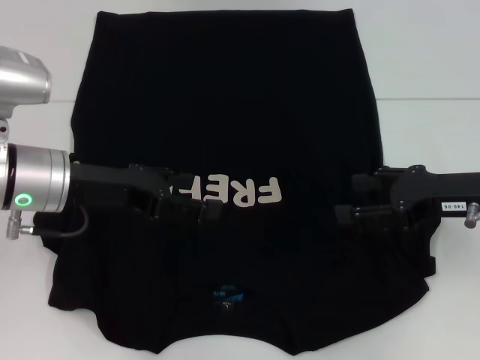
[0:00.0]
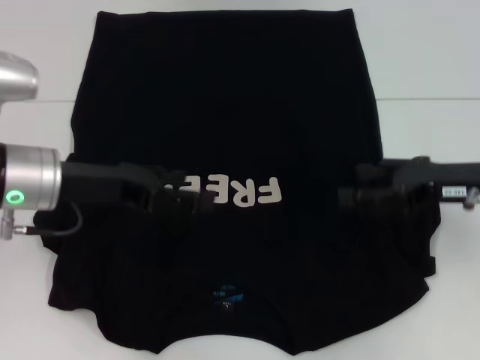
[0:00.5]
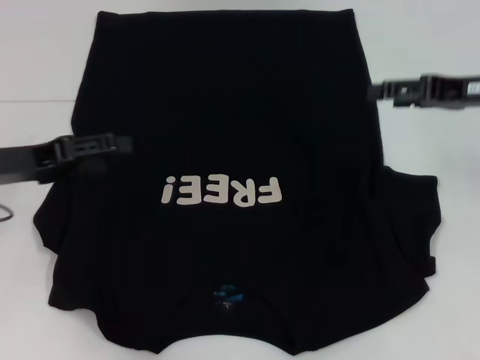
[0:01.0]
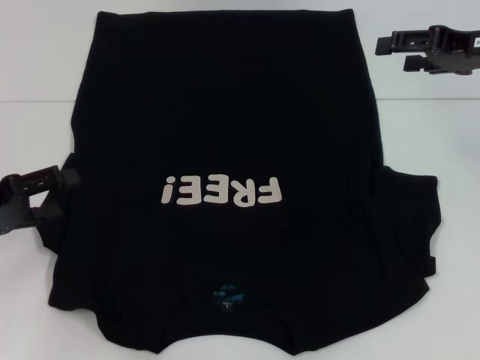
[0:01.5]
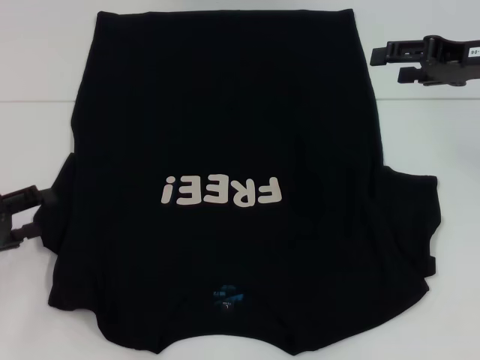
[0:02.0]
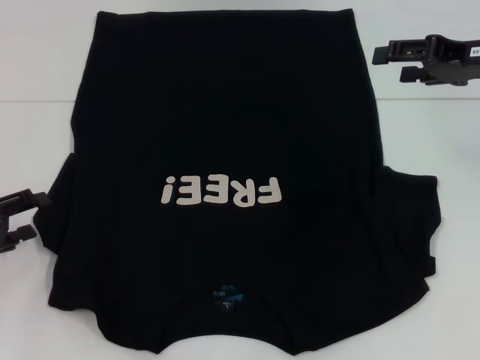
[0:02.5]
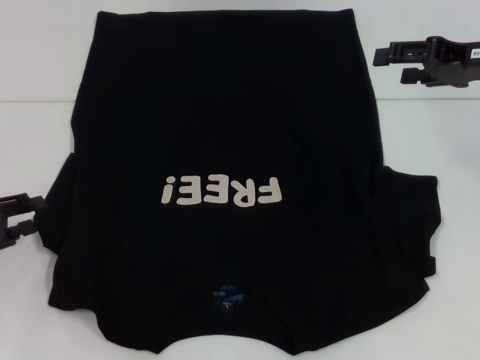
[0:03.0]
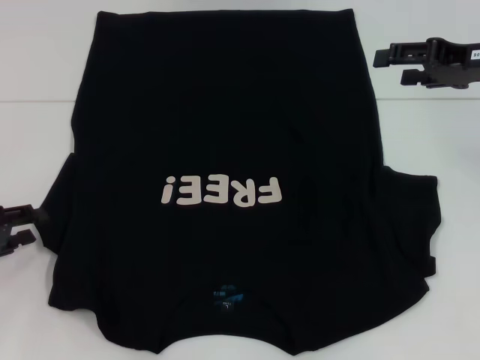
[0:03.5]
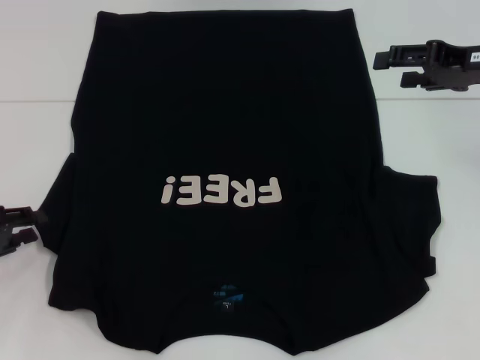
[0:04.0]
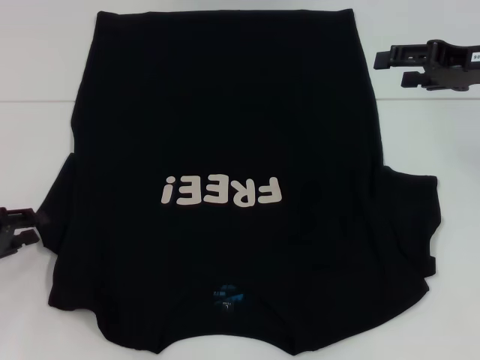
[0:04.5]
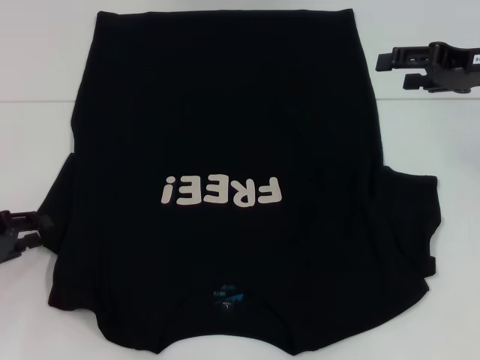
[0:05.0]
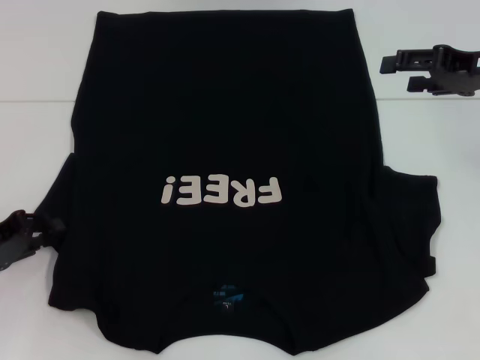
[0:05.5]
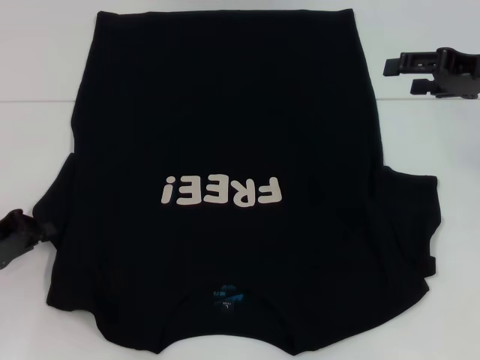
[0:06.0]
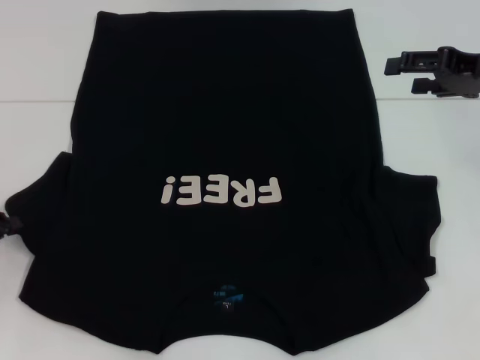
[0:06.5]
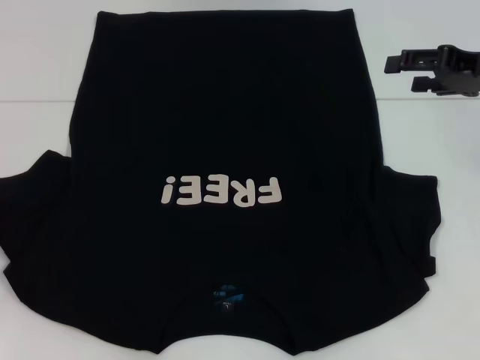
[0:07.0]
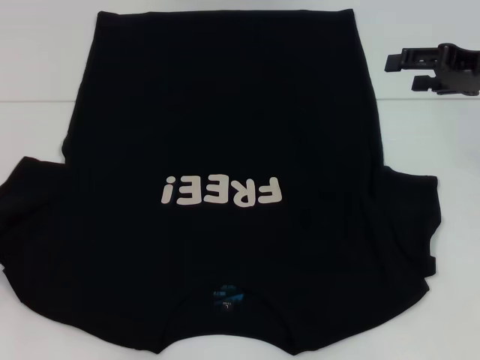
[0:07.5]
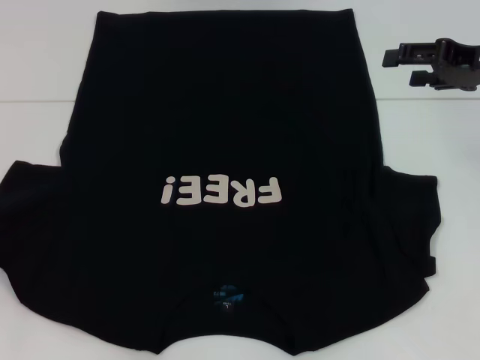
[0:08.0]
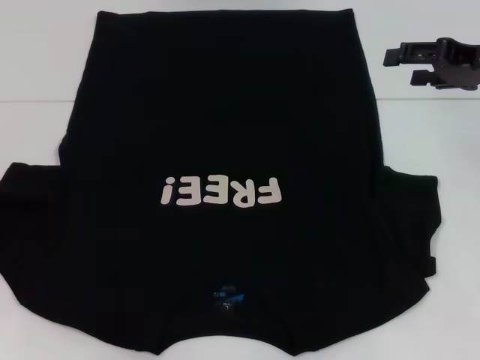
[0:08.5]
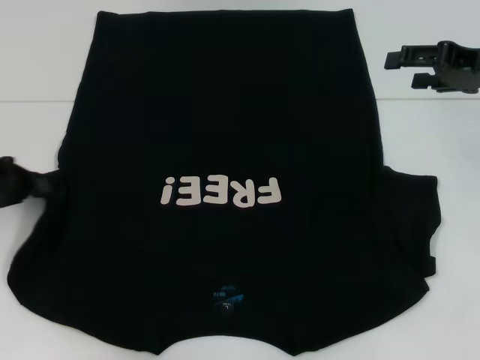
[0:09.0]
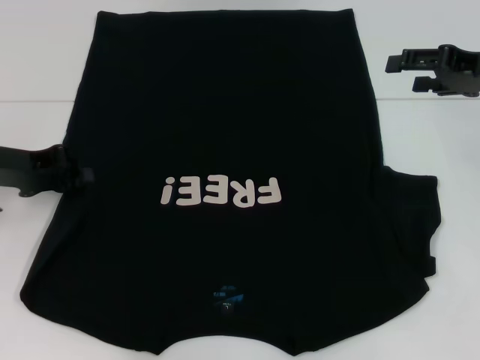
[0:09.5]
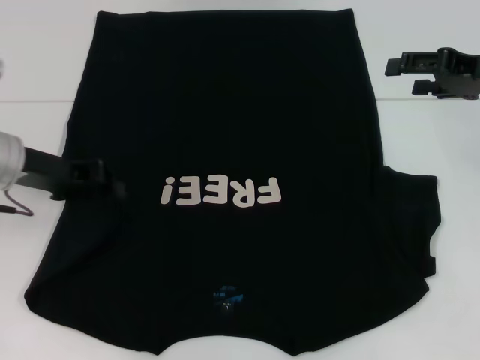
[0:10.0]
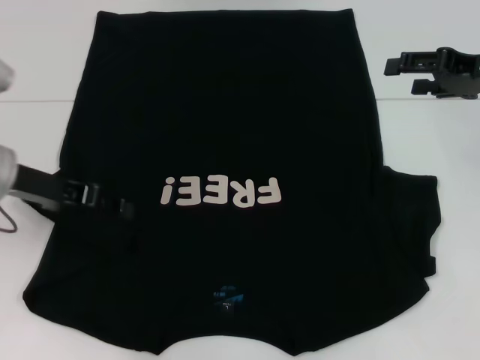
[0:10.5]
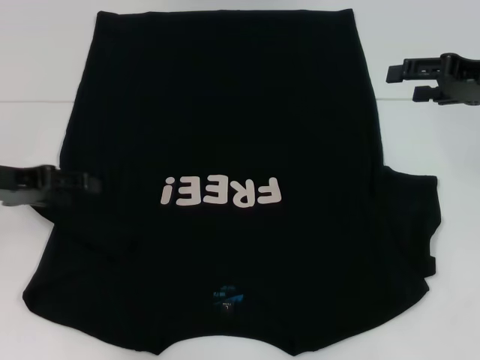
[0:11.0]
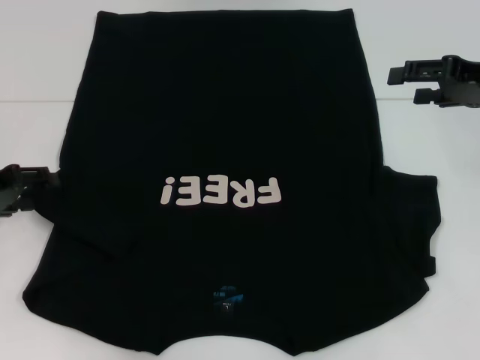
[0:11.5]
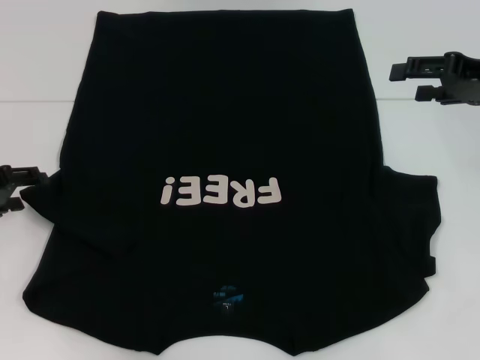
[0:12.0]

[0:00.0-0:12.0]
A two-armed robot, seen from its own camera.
0:00.0 to 0:02.0: The left gripper heads to the left, downward and backward, covering roughly 15 cm. The right gripper heads forward and upward, covering about 10 cm.
0:02.0 to 0:04.0: The left gripper closes up.
0:04.0 to 0:06.0: The grippers stay close to where they were, moving slightly.
0:06.0 to 0:08.0: The left gripper shifts some 5 cm to the left.
0:08.0 to 0:10.0: The left gripper travels to the right and forward by some 20 cm.
0:10.0 to 0:12.0: The left gripper is displaced to the left by roughly 10 cm, and opens its fingers.

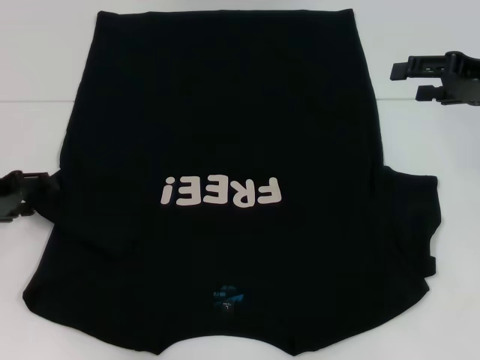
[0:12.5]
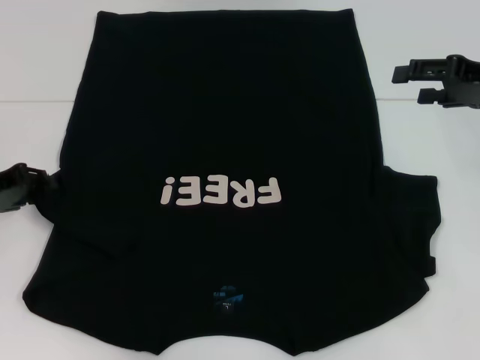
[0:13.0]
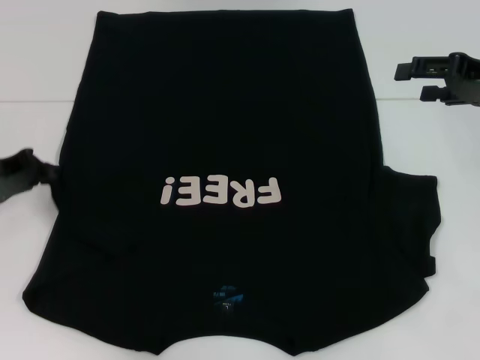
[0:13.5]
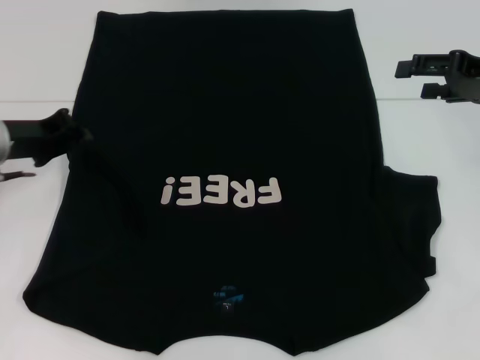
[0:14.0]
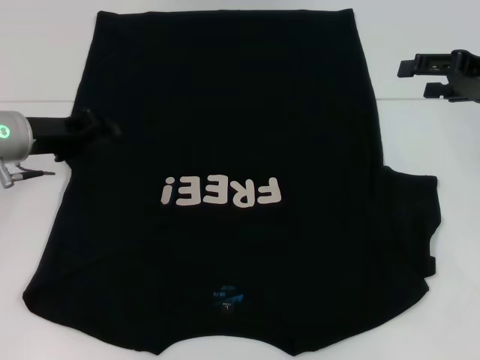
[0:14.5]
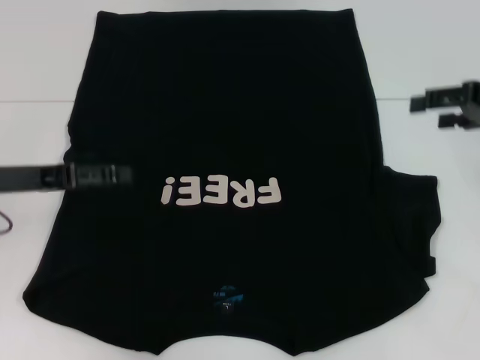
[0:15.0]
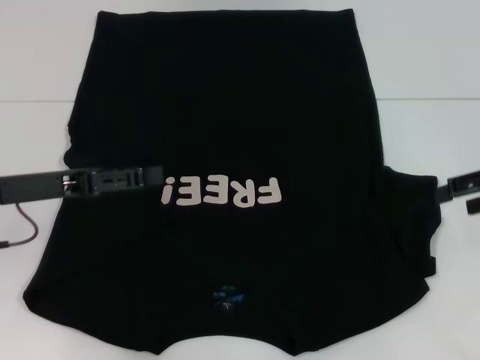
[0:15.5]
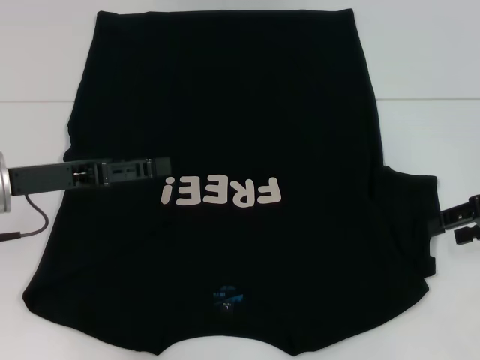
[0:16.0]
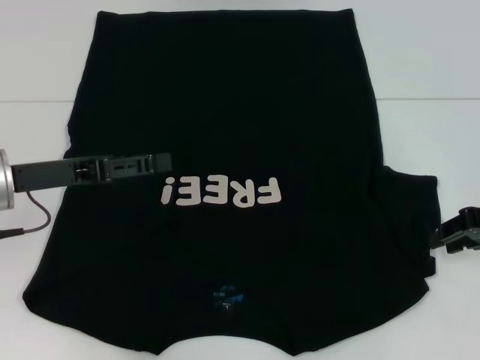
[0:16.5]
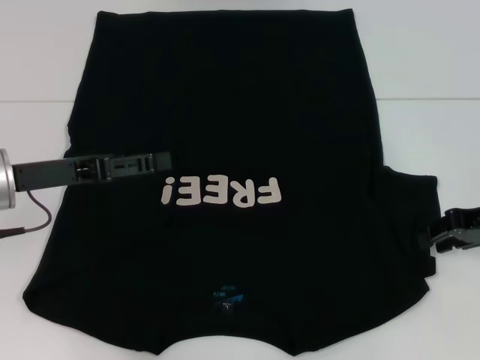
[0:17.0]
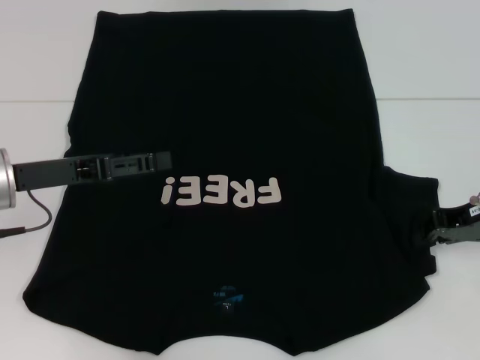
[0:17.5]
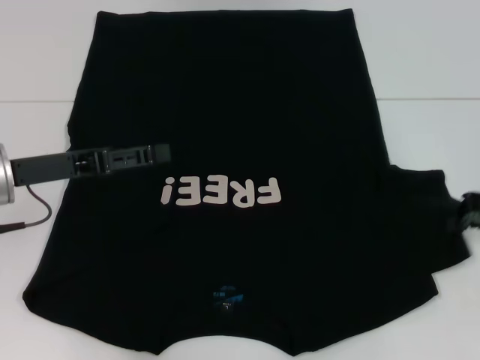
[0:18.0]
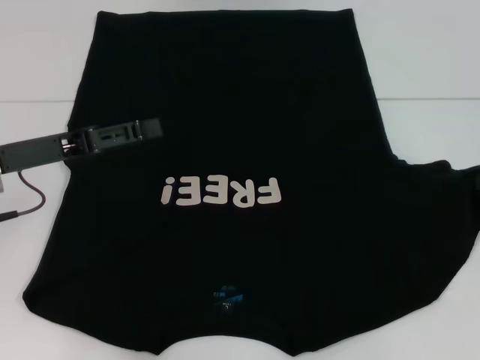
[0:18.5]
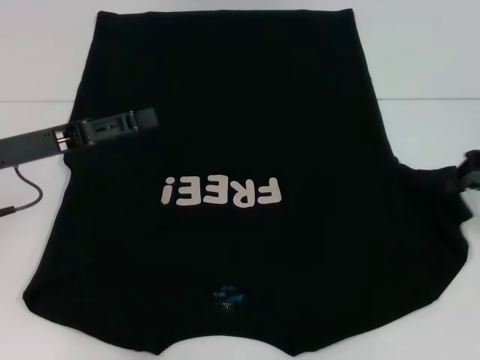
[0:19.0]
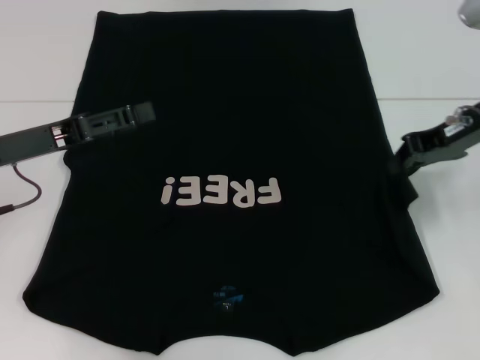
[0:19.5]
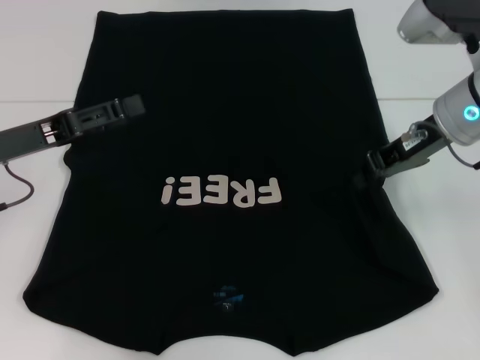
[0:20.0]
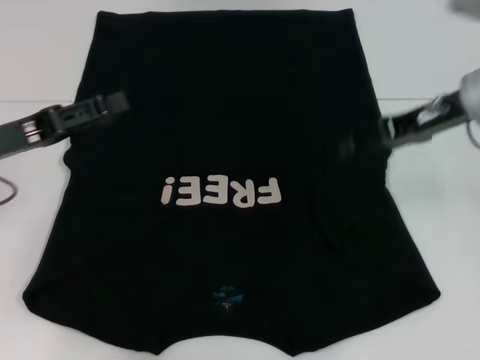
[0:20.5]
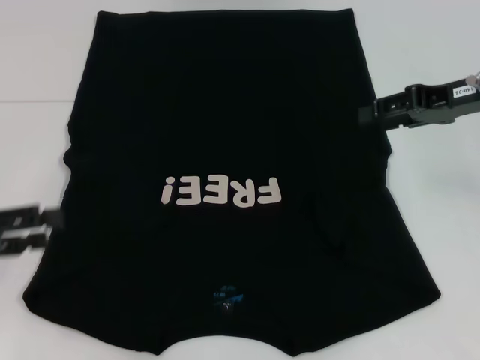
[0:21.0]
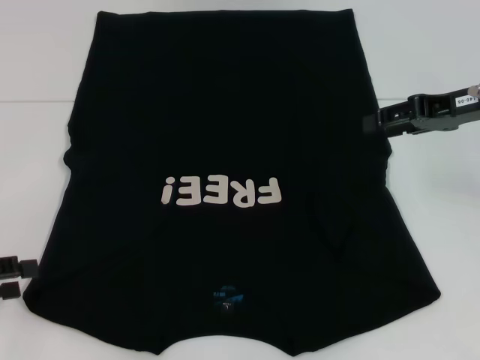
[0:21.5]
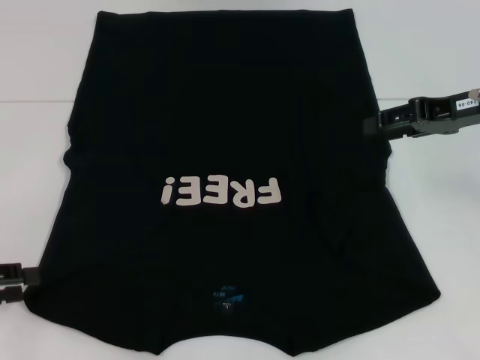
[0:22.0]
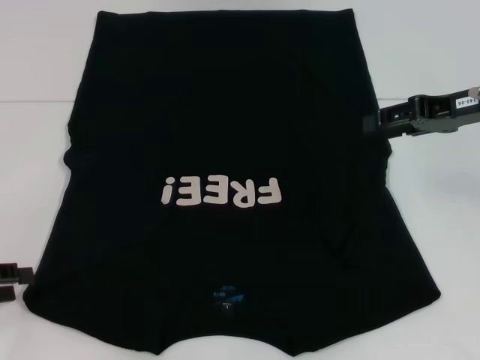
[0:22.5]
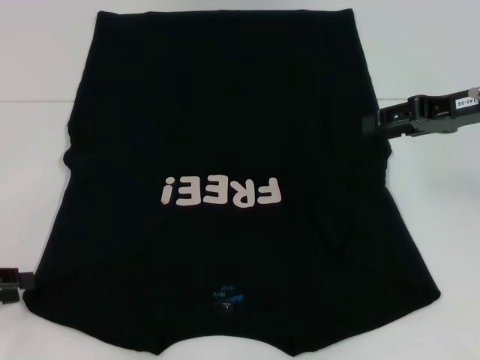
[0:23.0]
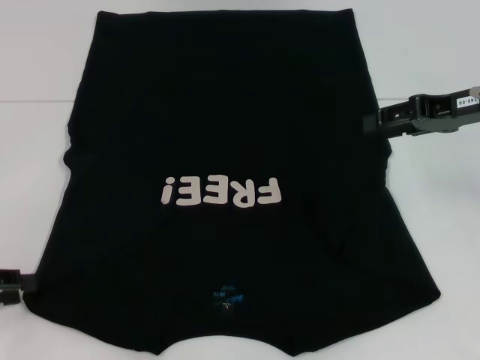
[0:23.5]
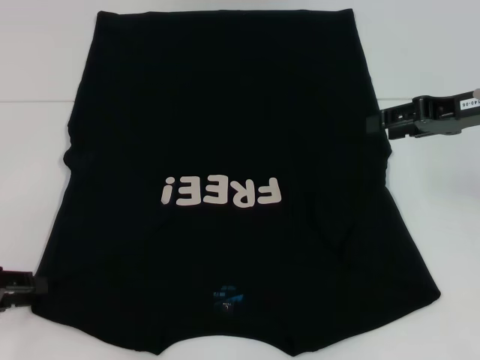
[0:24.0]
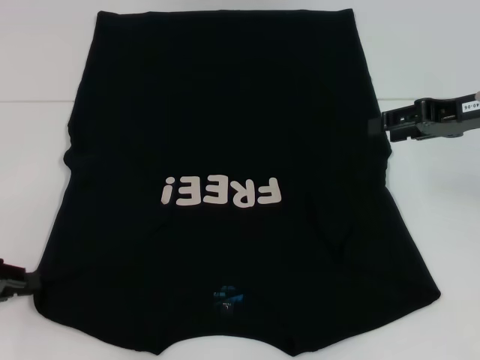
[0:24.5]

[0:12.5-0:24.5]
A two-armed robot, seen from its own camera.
Step, 0:12.5 to 0:15.0: Fold the bottom left sleeve with your left hand.
Step, 0:15.5 to 0:20.0: Fold the bottom right sleeve with your right hand.
0:12.5 to 0:14.5: The left gripper travels to the right and forward by roughly 10 cm, and closes its fingers.
0:14.5 to 0:16.5: The left gripper is displaced backward by some 5 cm, and opens its fingers. The right gripper moves downward and backward, approximately 10 cm, and closes its fingers.
0:16.5 to 0:18.5: The right gripper ends up roughly 5 cm from where it was, and closes.
0:18.5 to 0:20.5: The right gripper goes some 10 cm to the left.
0:20.5 to 0:22.5: The left gripper heads to the left, backward and downward, covering roughly 15 cm, while the right gripper opens.
0:22.5 to 0:24.5: The grippers stay close to where they were, moving slightly.

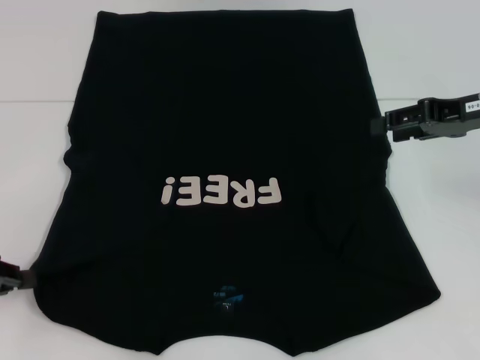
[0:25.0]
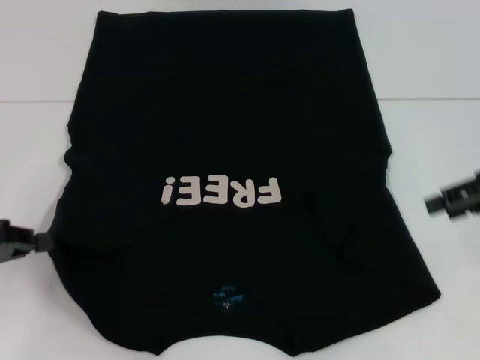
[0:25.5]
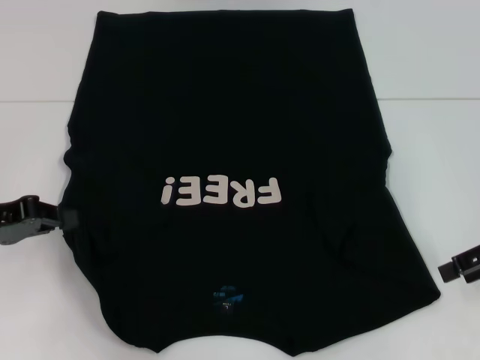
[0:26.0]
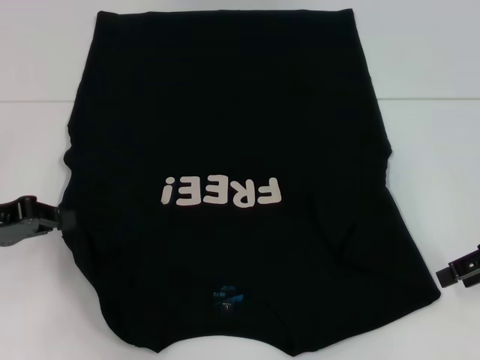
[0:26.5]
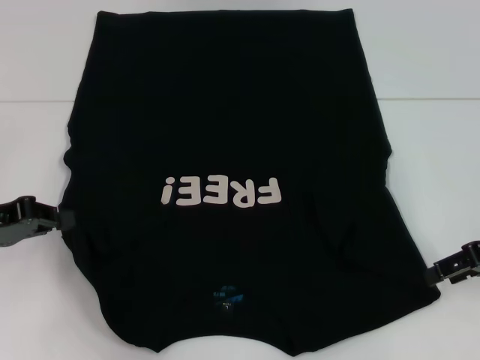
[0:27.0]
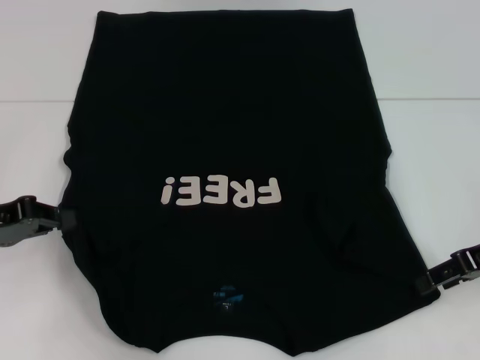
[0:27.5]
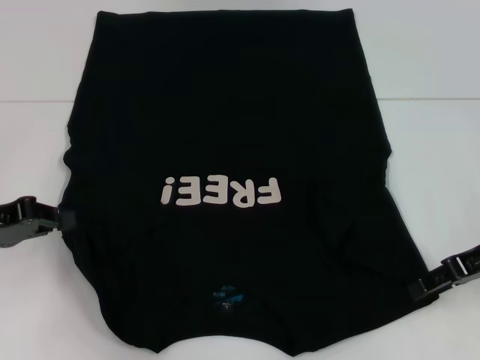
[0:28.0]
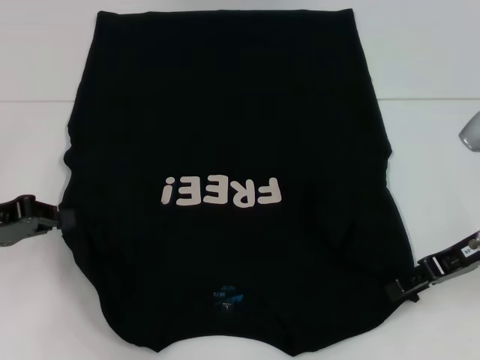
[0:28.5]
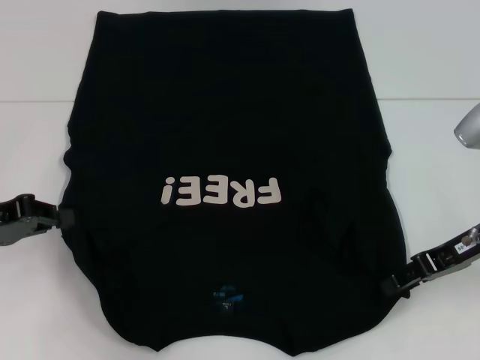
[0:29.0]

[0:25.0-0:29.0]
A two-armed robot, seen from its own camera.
0:25.0 to 0:27.0: The left gripper changes place by roughly 5 cm. Meanwhile the right gripper travels backward and downward by roughly 10 cm.
0:27.0 to 0:29.0: The right gripper heads to the left, covering approximately 5 cm.
